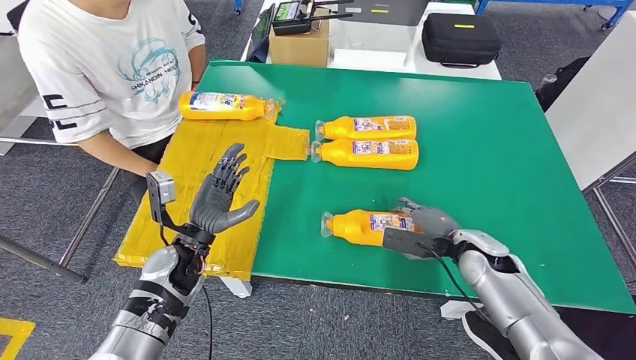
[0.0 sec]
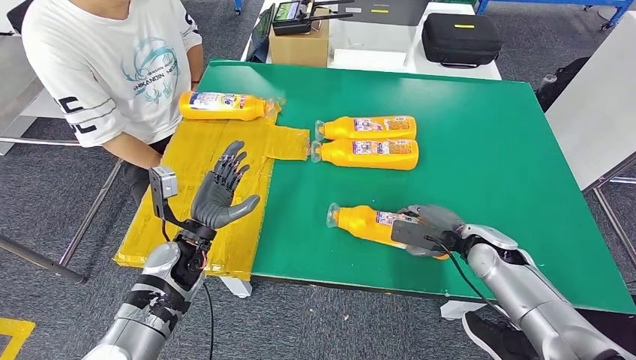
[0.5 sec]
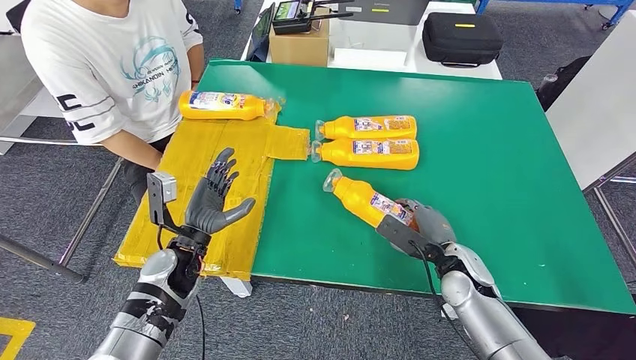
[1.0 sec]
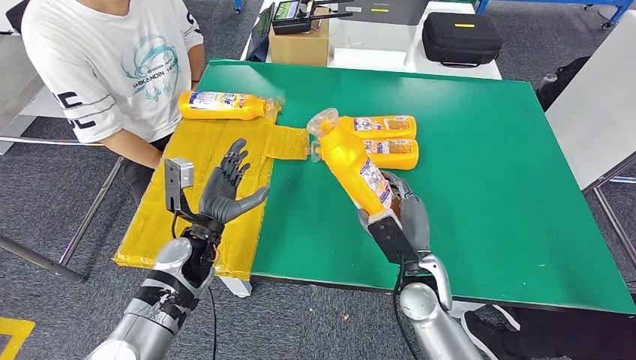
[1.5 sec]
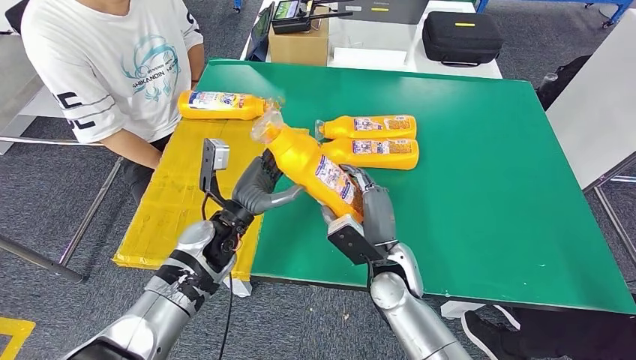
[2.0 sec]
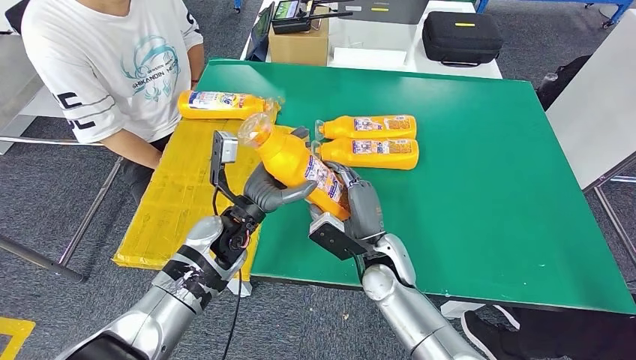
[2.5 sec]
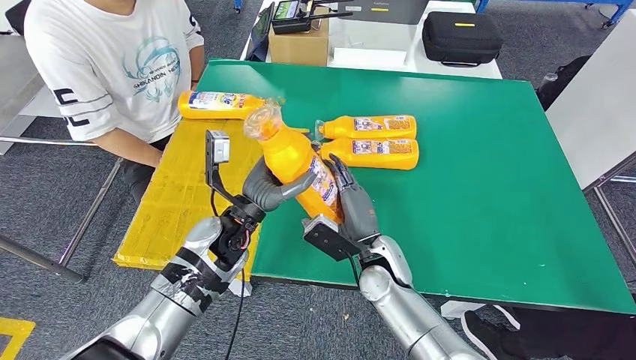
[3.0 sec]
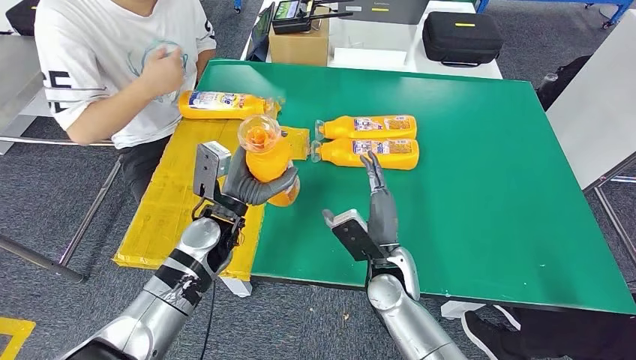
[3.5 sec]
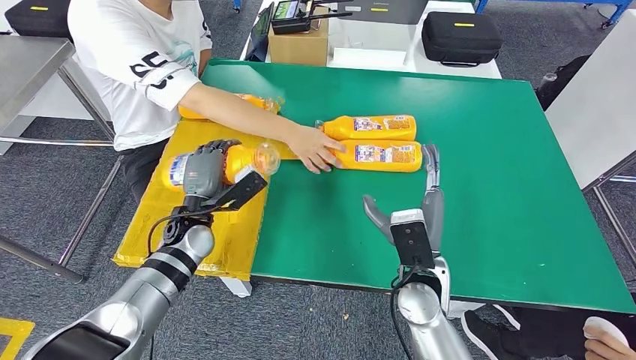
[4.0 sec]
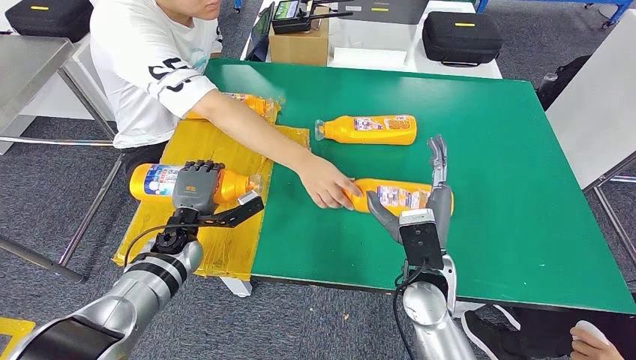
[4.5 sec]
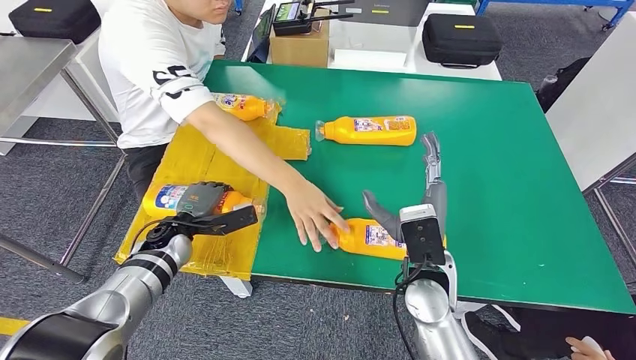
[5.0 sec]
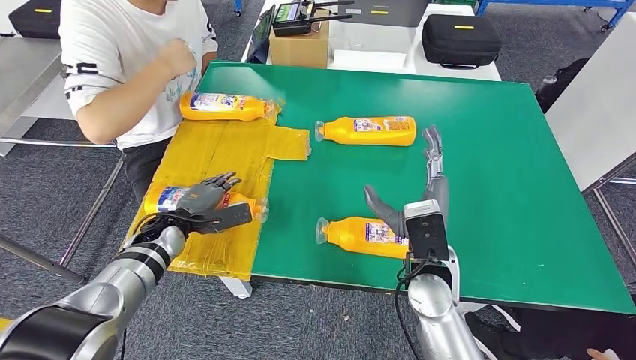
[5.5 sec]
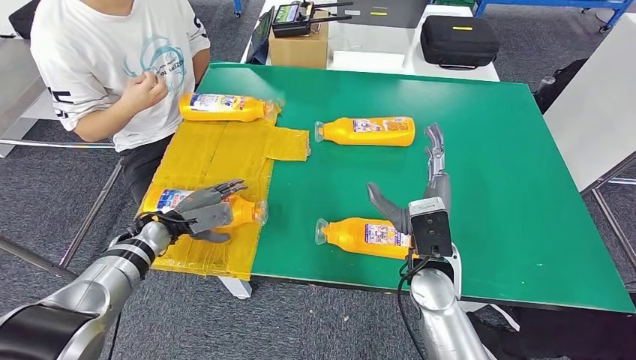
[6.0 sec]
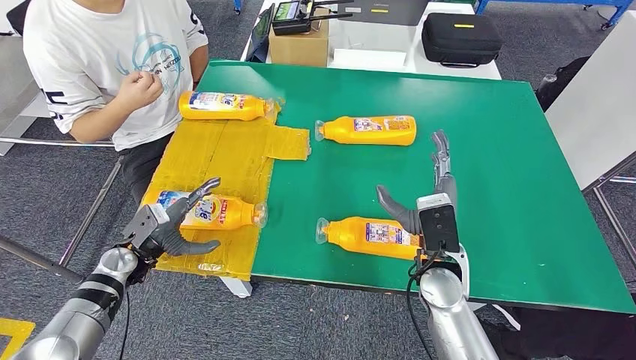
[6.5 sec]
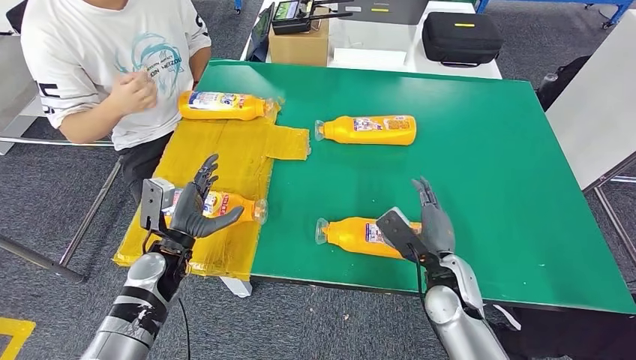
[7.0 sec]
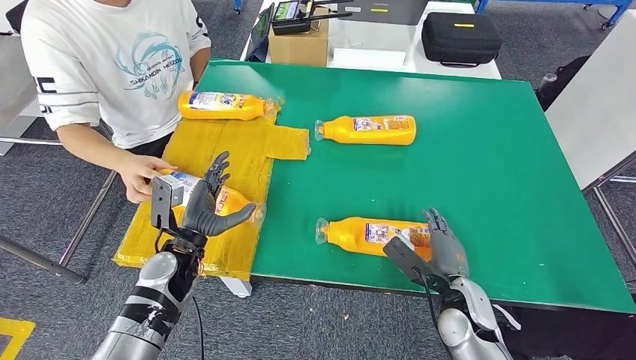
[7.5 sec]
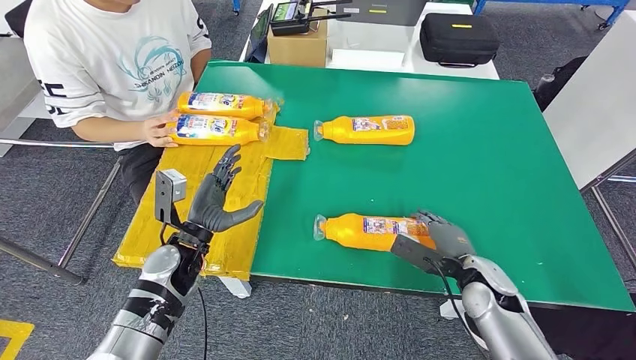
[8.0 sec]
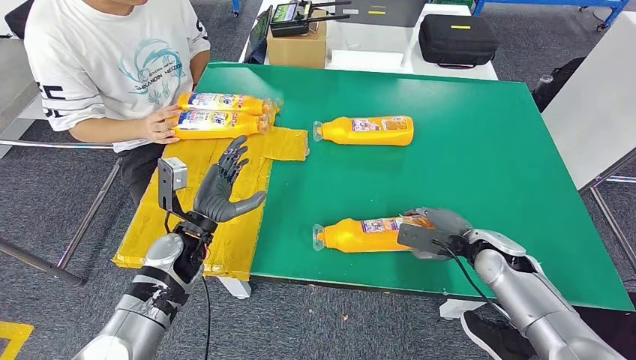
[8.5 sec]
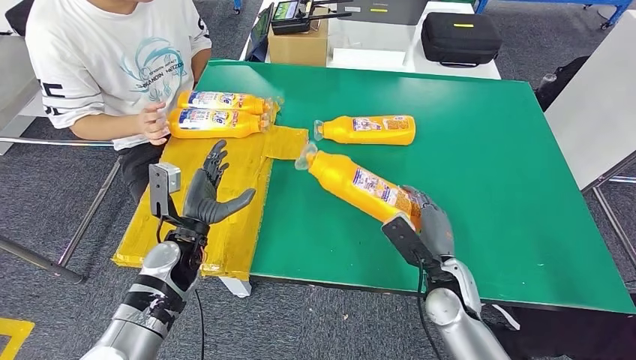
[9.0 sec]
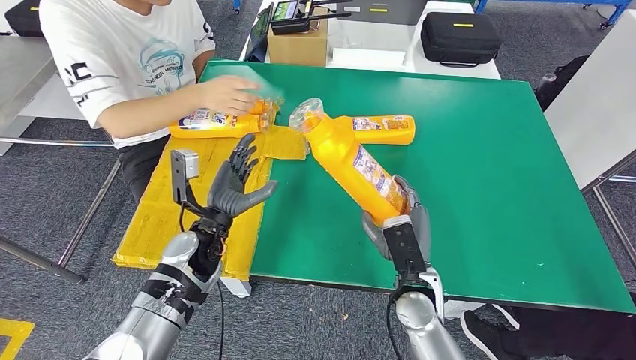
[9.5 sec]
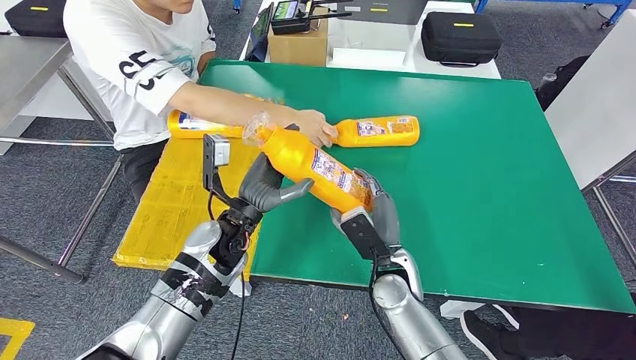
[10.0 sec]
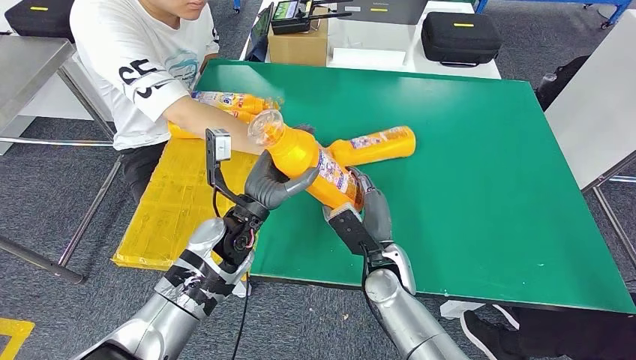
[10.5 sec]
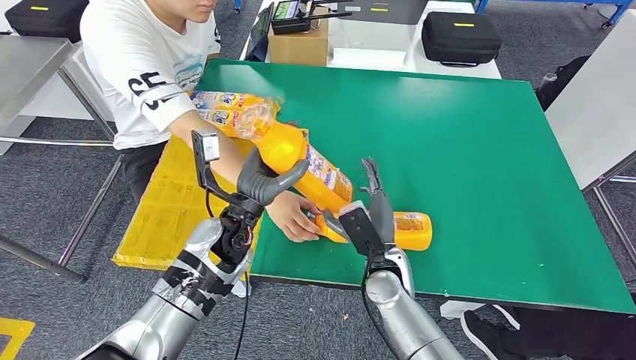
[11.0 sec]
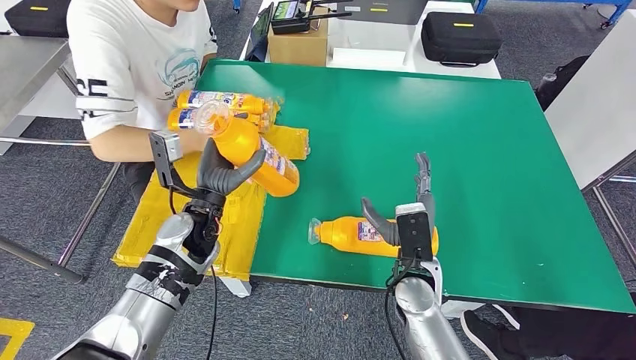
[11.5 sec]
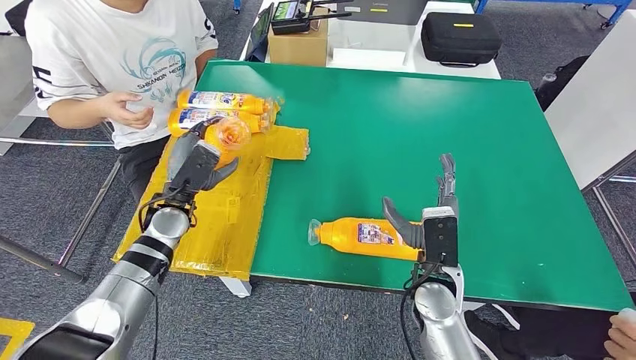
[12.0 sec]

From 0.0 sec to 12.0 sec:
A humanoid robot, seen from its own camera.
Step, from 1.5 sec to 7.0 sec: Flip the fast-moving consumer goods bottle to the front side.
Step, from 7.5 sec to 9.5 sec: Pick up the fast-moving consumer goods bottle from the table.

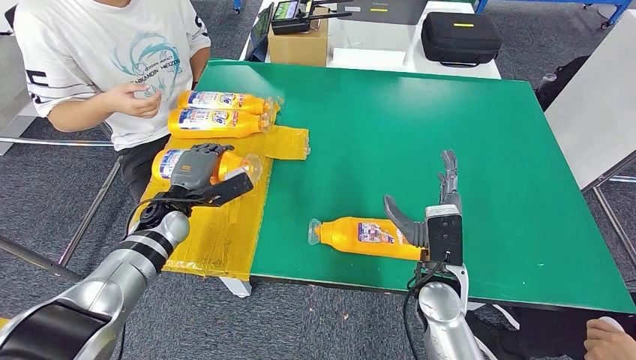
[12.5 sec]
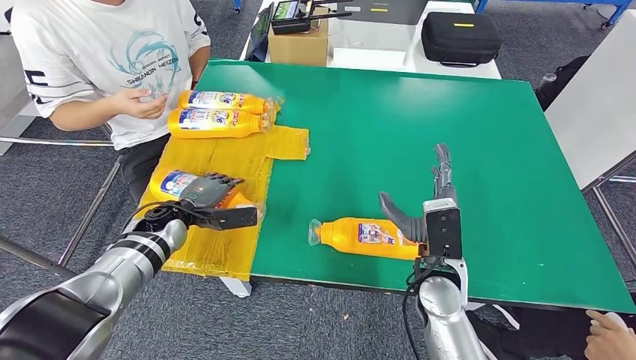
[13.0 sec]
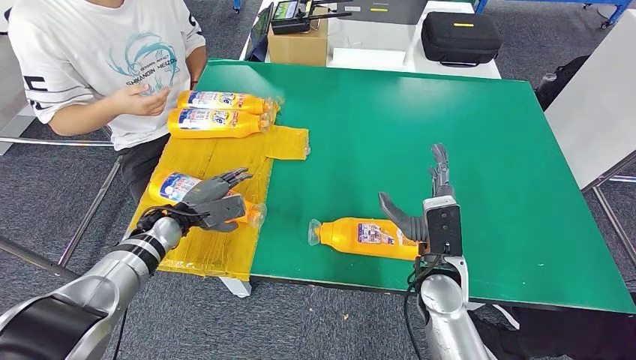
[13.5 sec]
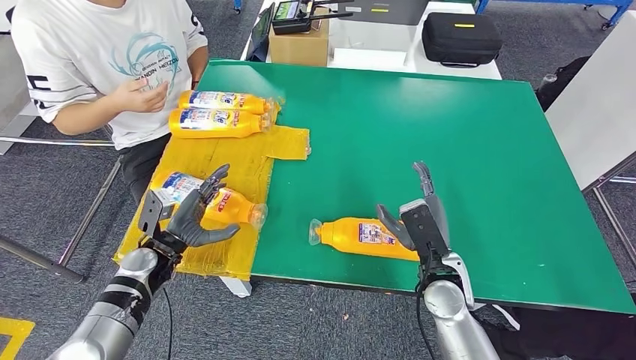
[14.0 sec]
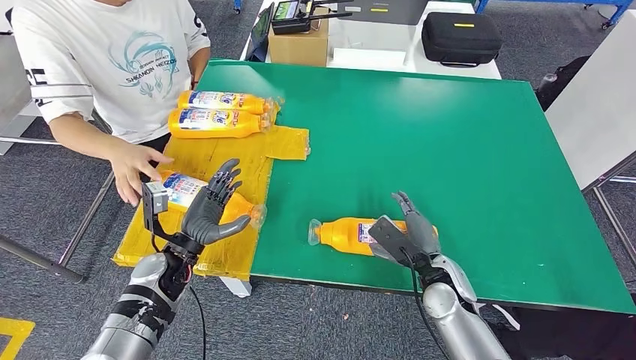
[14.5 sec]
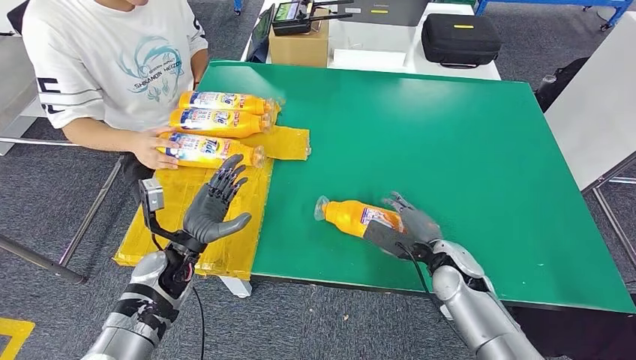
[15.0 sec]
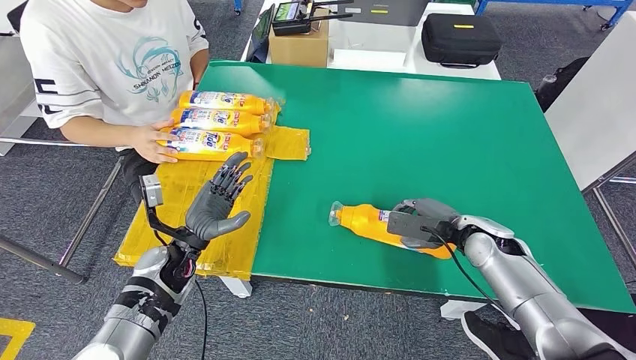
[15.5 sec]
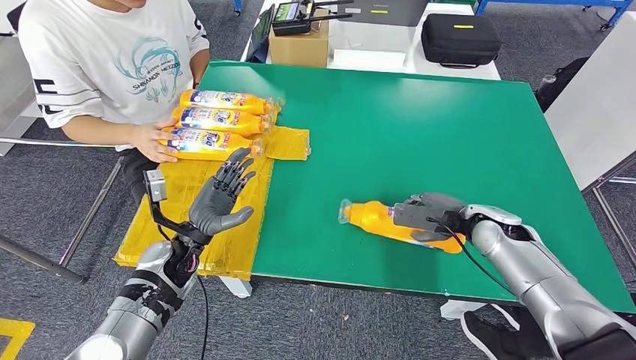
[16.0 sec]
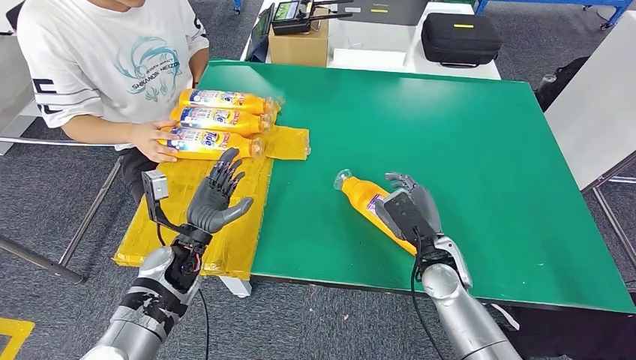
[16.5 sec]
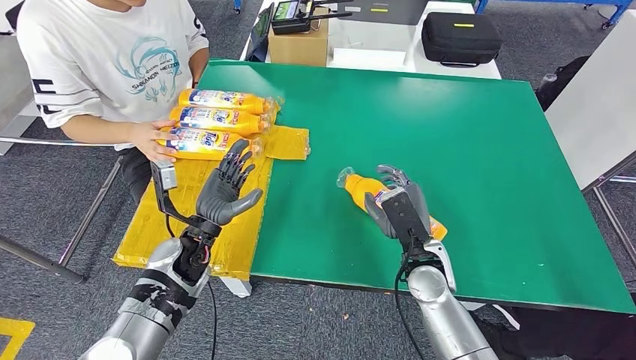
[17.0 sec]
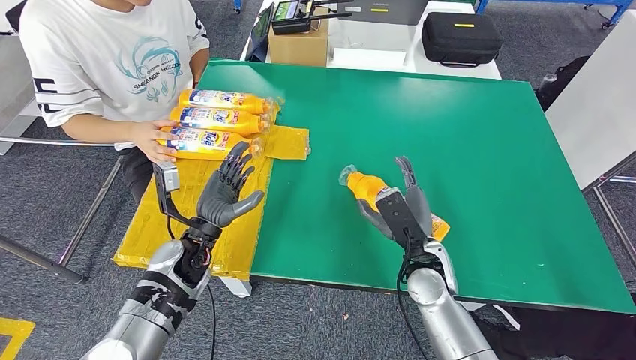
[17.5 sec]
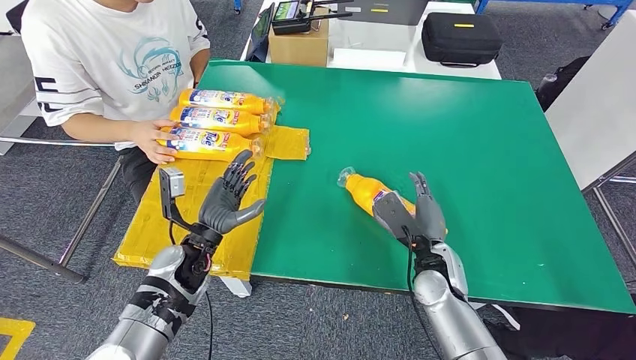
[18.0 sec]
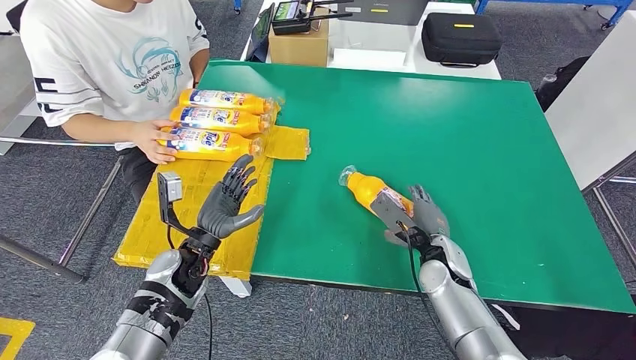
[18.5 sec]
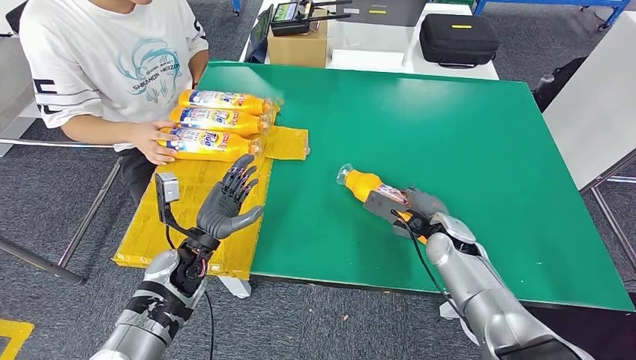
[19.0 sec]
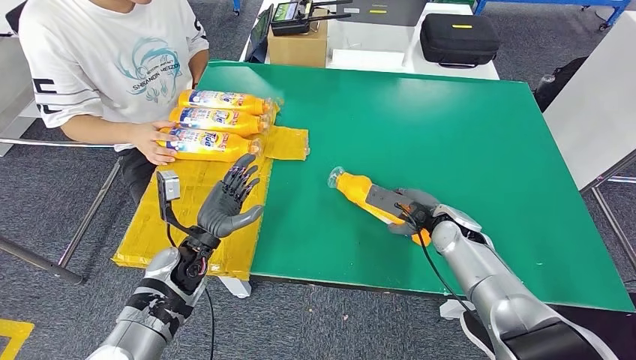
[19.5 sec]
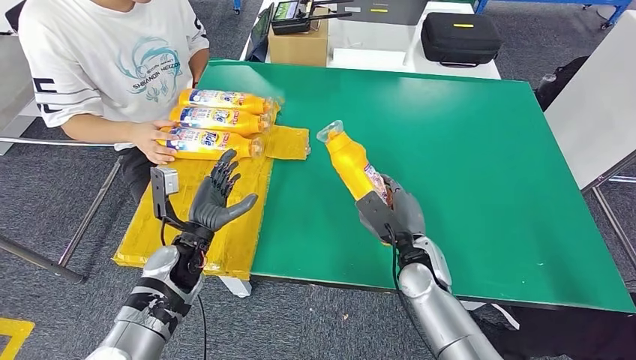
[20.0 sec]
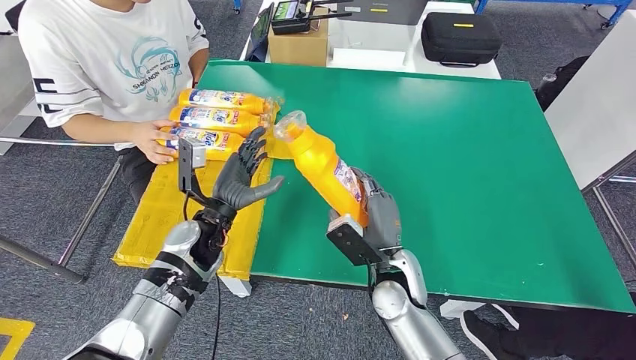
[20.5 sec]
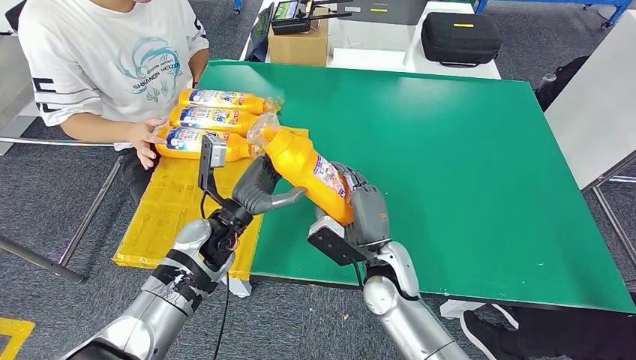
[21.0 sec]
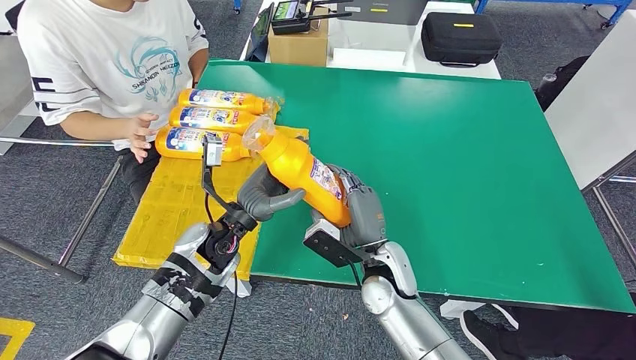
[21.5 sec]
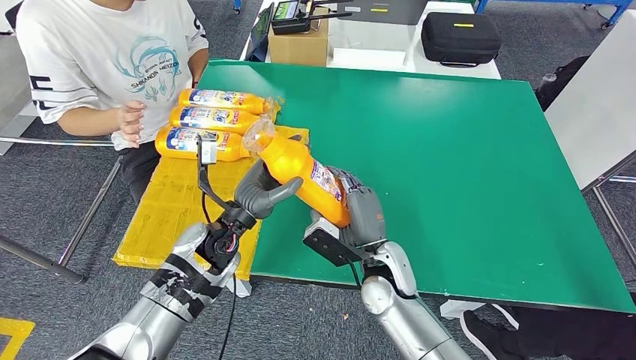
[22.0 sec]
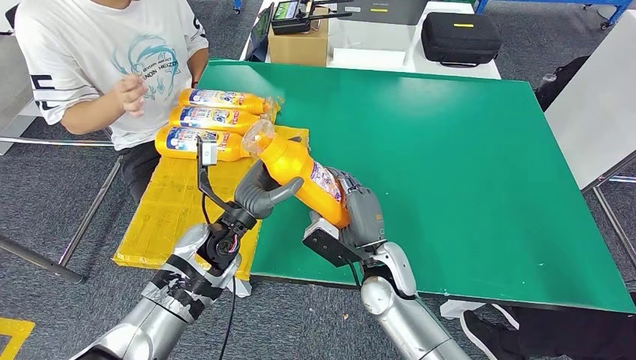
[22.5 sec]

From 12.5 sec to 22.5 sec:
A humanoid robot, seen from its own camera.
Step, from 12.5 sec to 14.5 sec: Flip the fast-moving consumer goods bottle to the front side.
Step, from 15.0 sec to 20.5 sec: Pick up the fast-moving consumer goods bottle from the table.
From 12.5 sec to 14.5 sec: The right hand shifts approximately 5 cm downward, while the left hand moves backward, roughly 10 cm.
From 14.5 sec to 16.5 sec: The right hand reaches some 10 cm to the right, then returns.
From 18.5 sec to 20.5 sec: The right hand goes some 10 cm to the left. The left hand changes place by some 5 cm.
